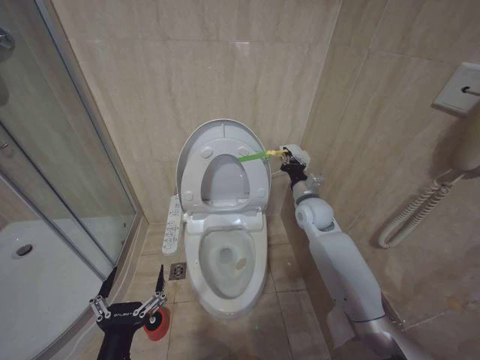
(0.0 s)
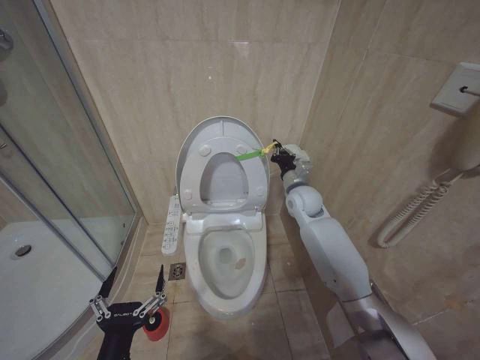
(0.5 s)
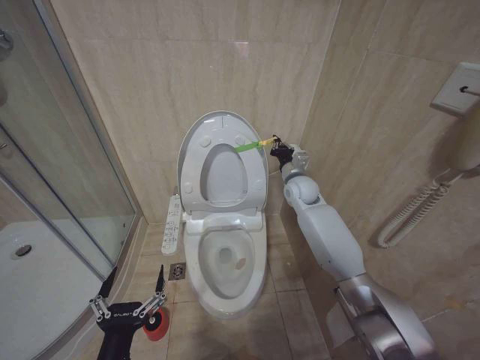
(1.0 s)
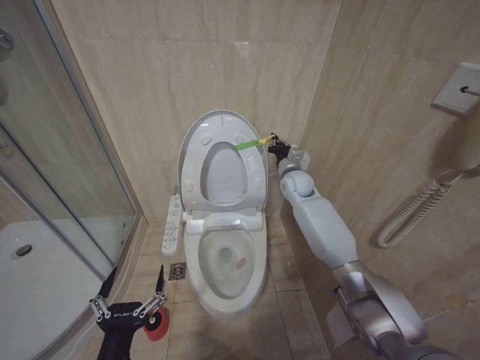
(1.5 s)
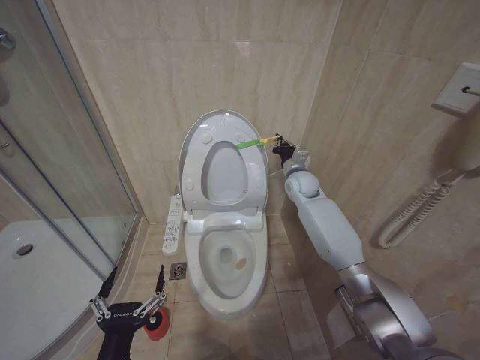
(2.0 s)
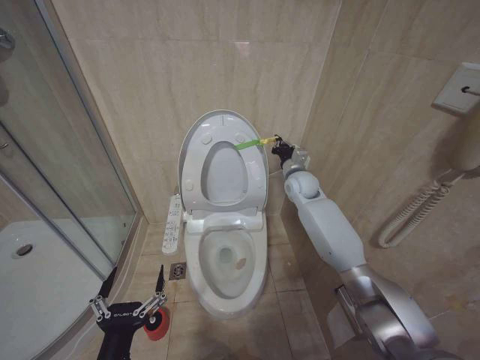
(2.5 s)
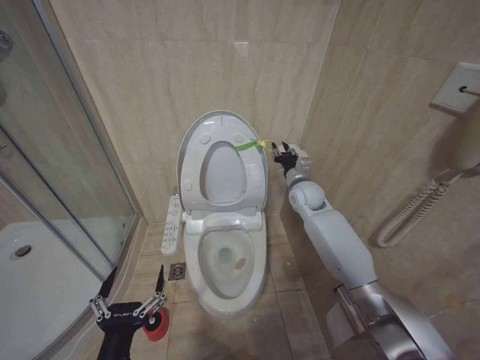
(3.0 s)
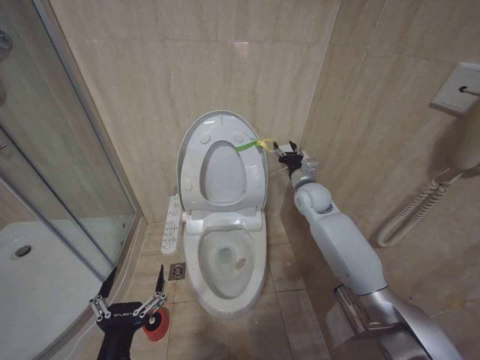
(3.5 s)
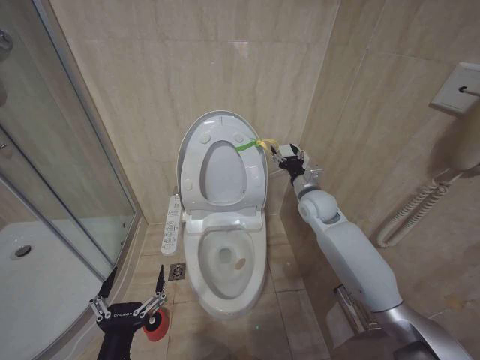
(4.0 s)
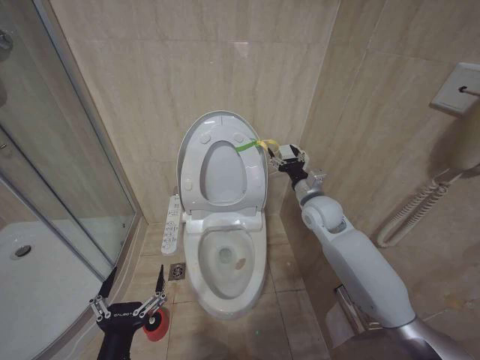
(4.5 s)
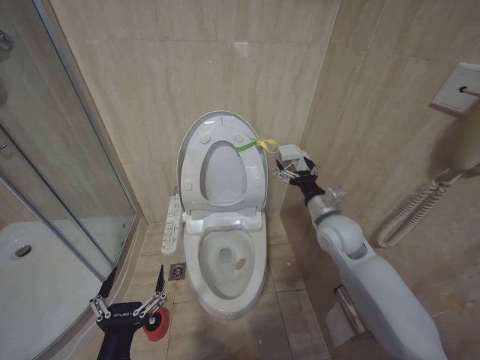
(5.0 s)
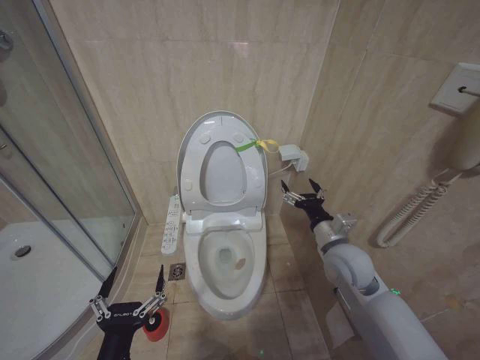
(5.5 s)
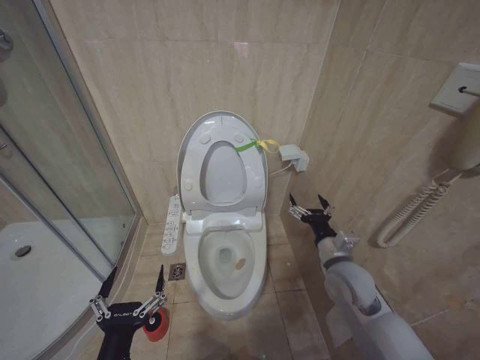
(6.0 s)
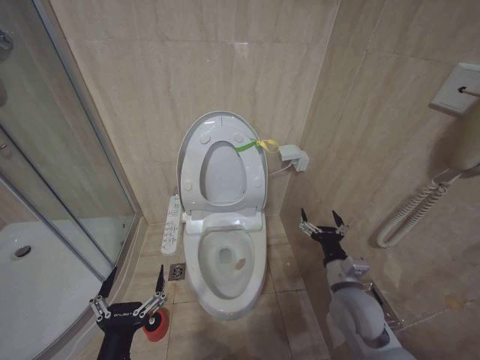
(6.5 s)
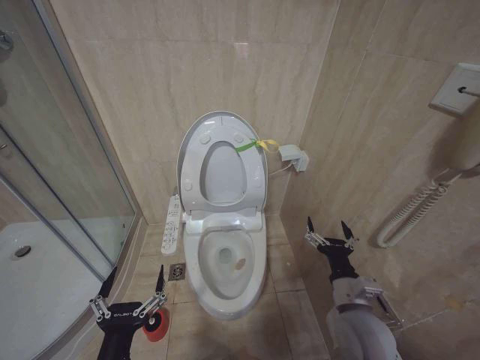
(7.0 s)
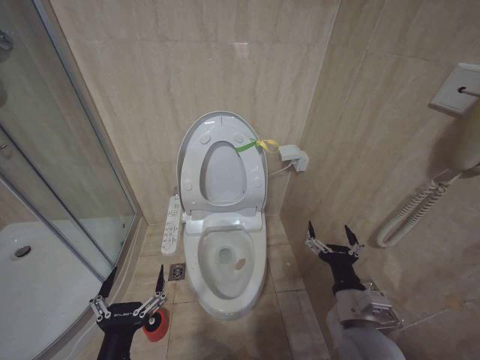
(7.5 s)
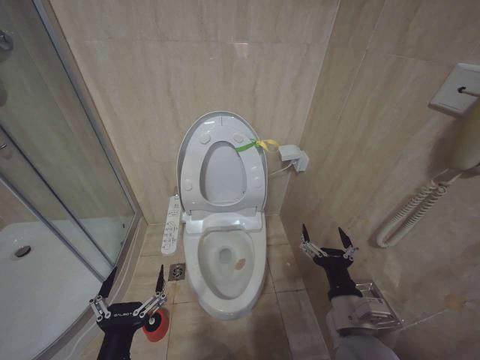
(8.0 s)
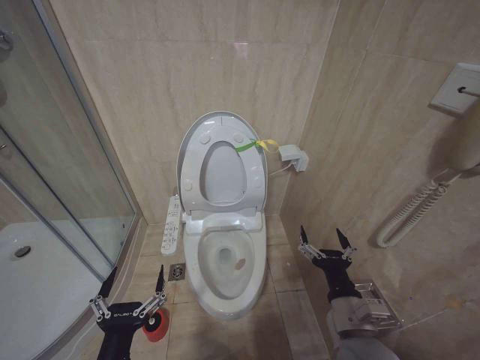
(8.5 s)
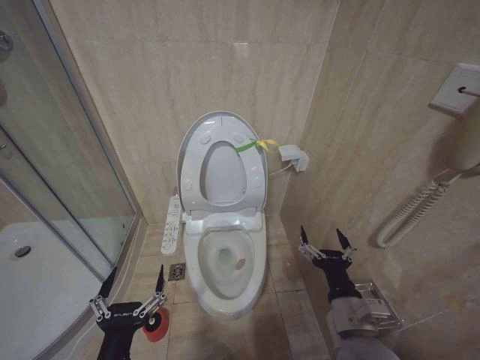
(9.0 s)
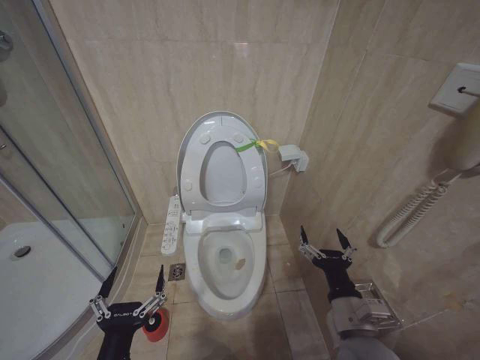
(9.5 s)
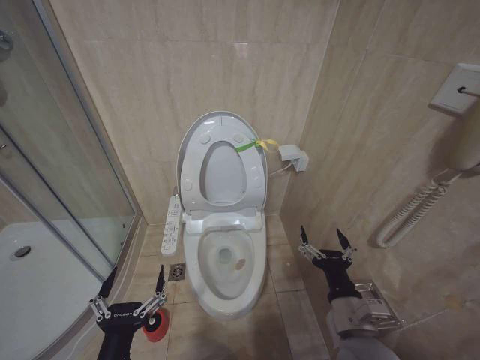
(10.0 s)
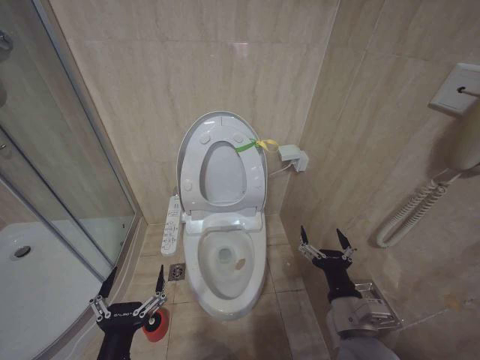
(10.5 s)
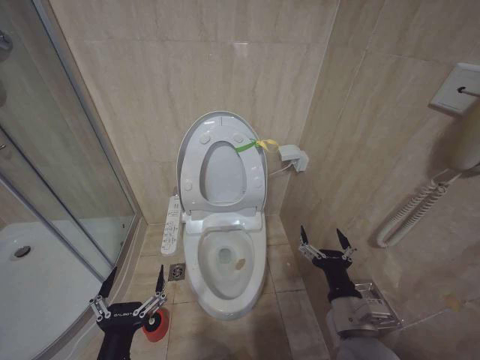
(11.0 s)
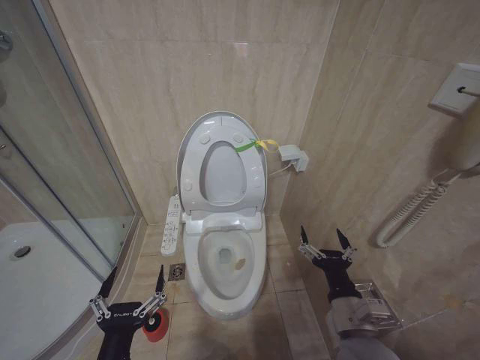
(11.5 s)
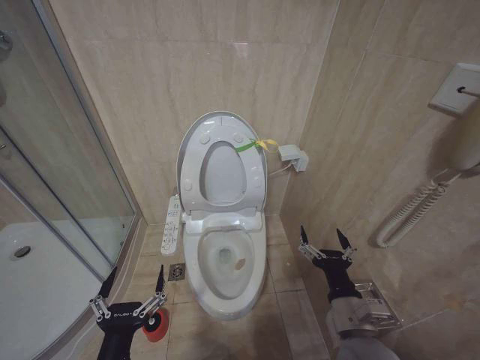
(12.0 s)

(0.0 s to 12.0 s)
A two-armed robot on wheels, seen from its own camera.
Task of the whole recording: Open the toilet lid, clean the toilet bowl with a toilet brush, close the toilet lid, and flush.
0.0 s - 2.0 s: The right gripper shifts some 10 cm forward.
2.0 s - 4.0 s: The right gripper moves backward, approximately 10 cm, and opens up.
4.0 s - 6.0 s: The right gripper travels backward and downward by approximately 20 cm.
6.0 s - 8.0 s: The right gripper shifts roughly 15 cm backward.
8.0 s - 12.0 s: The two grippers keep their place.

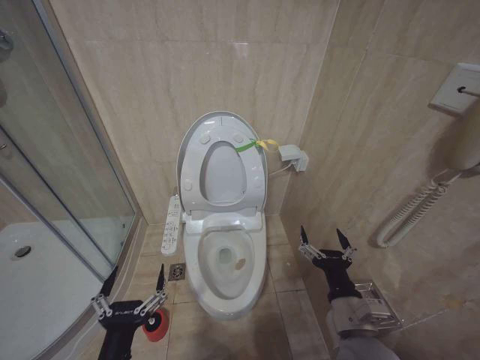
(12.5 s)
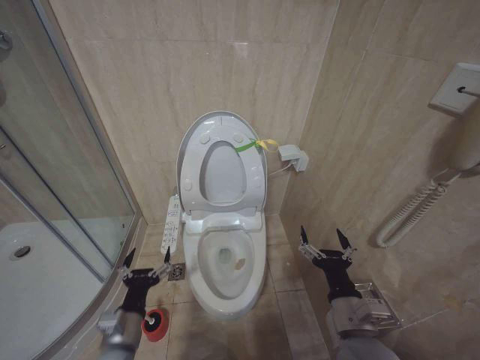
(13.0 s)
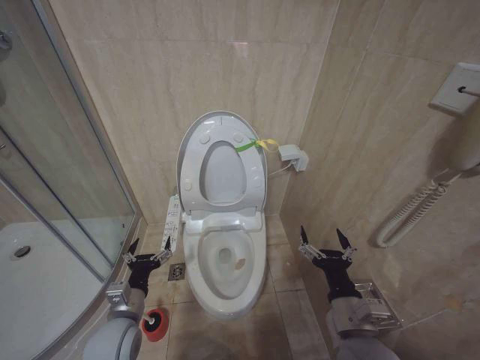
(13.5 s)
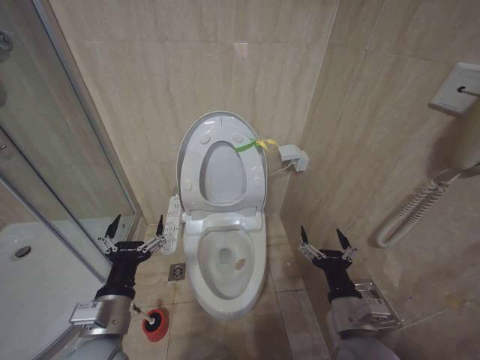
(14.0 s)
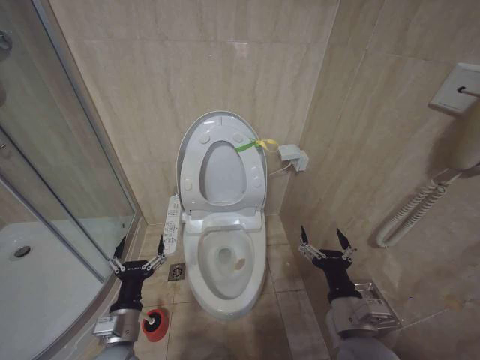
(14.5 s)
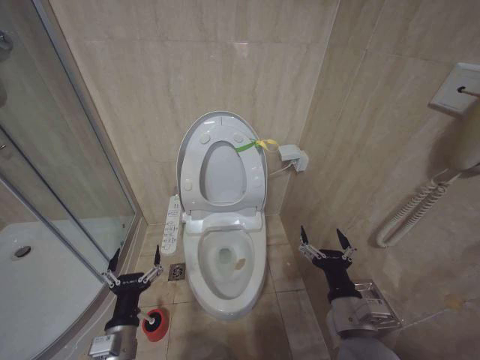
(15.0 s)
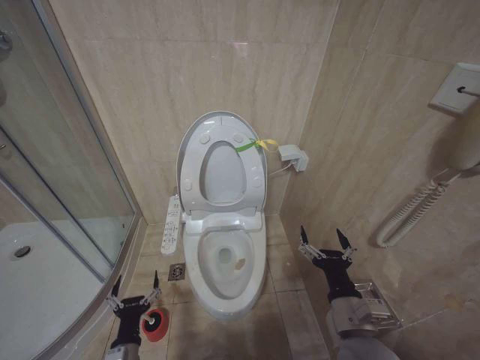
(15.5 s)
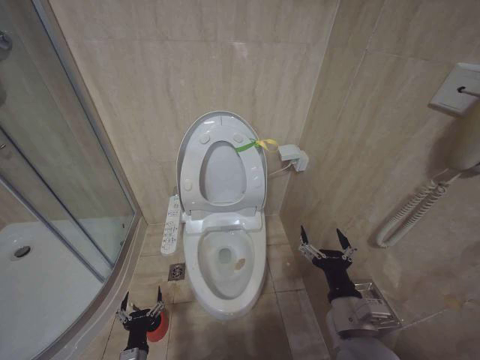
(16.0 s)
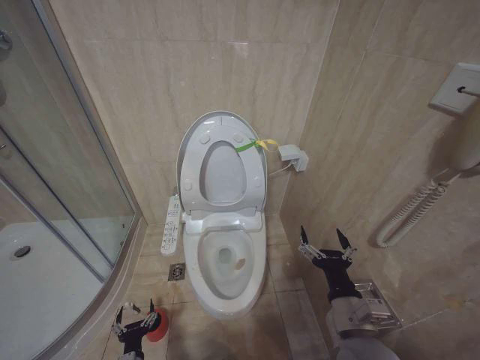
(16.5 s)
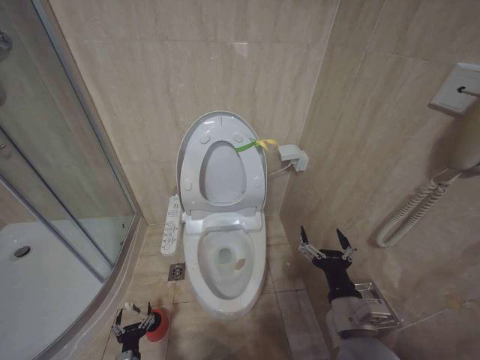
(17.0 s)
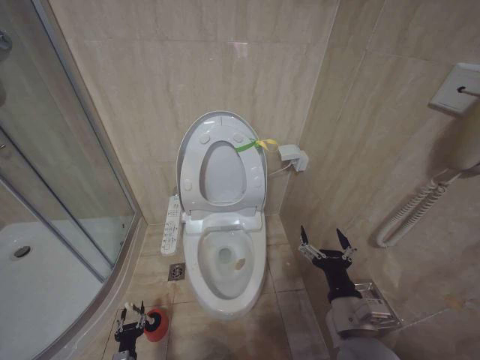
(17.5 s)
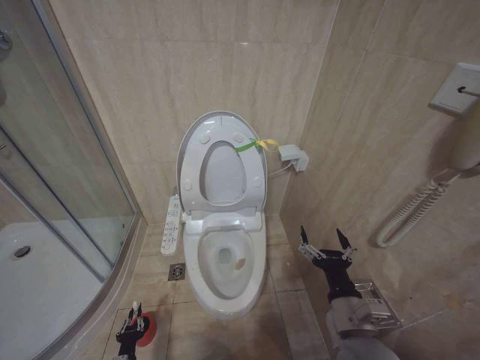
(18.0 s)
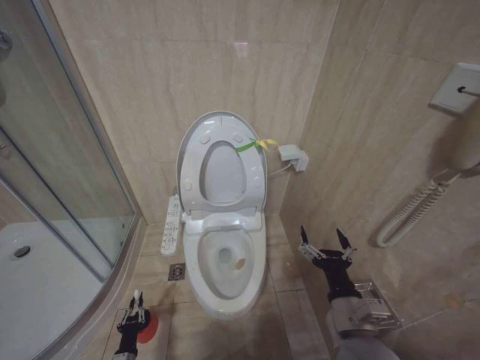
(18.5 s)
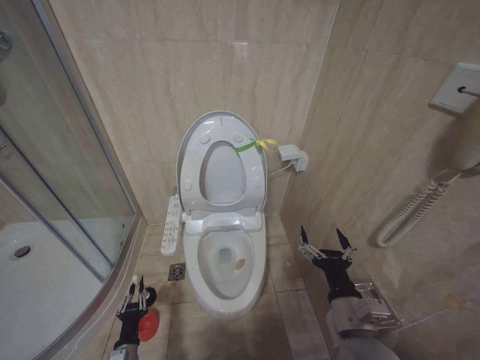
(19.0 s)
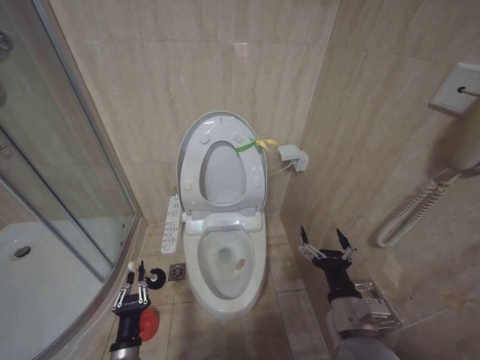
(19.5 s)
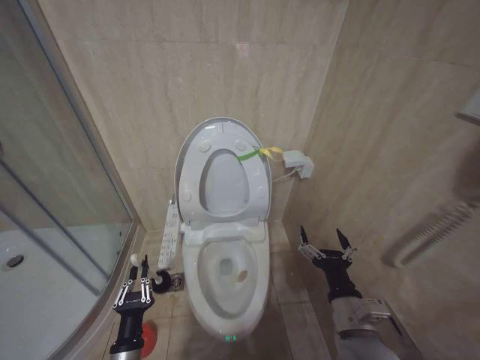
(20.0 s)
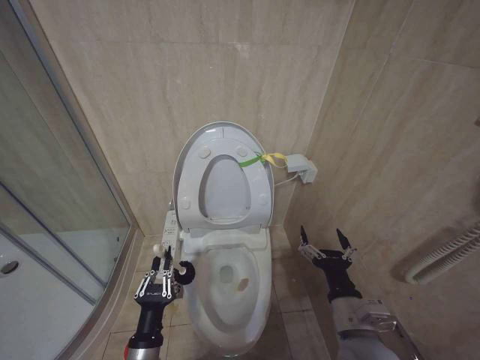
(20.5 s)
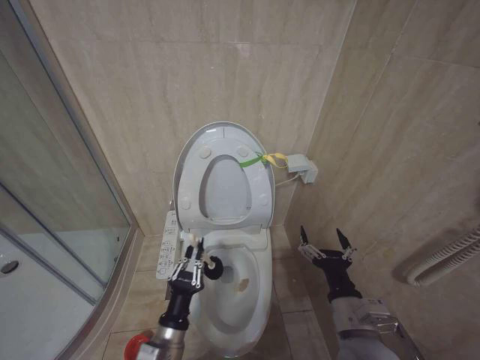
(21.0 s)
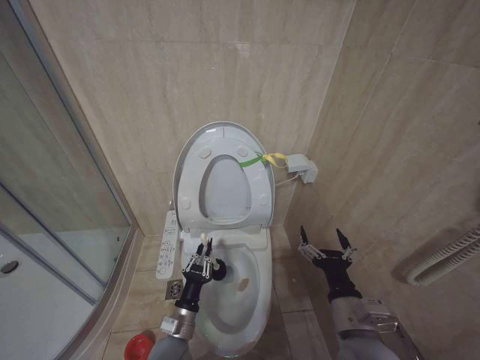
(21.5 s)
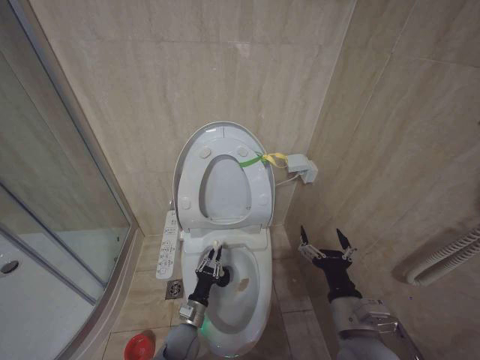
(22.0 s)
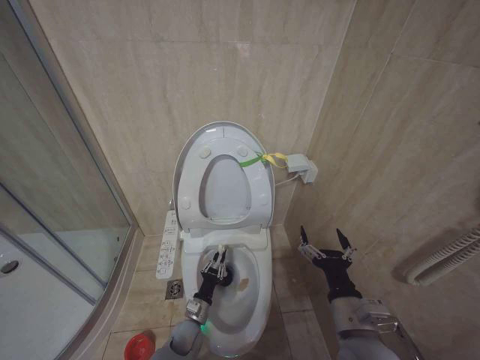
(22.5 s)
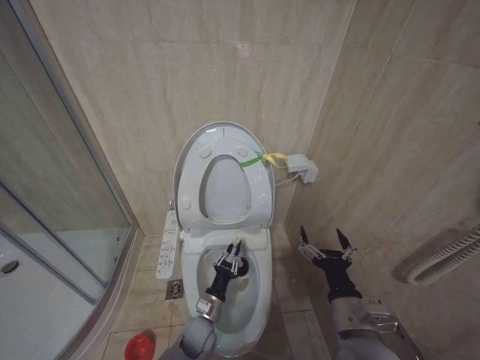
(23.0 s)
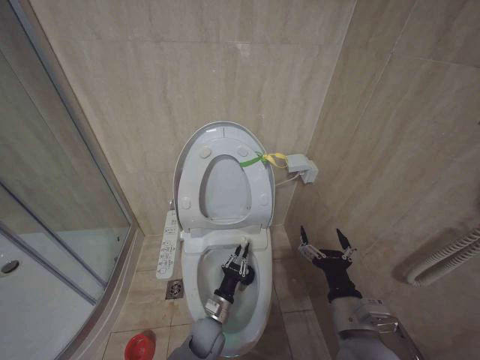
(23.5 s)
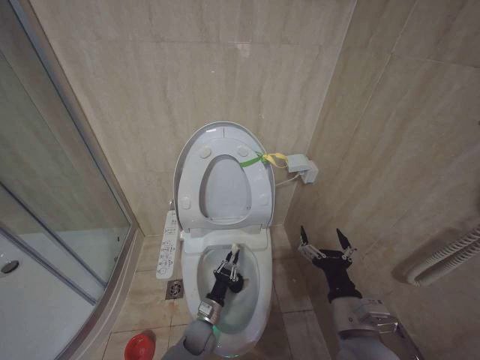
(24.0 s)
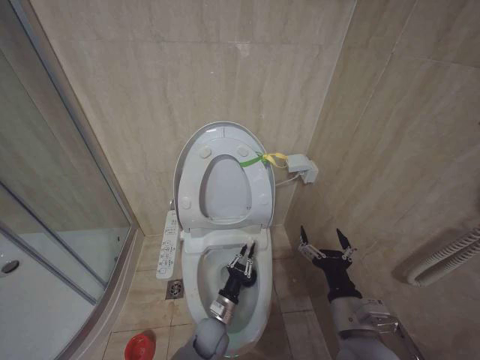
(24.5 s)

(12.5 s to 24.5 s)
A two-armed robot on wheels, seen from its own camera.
Task of the whole recording: Open the toilet lid, clean the toilet bowl with a toilet brush, close the toilet lid, and flush.
12.5 s - 14.5 s: The left gripper shifts roughly 10 cm forward.
14.5 s - 16.5 s: The left gripper goes some 25 cm downward.
16.5 s - 18.5 s: The left gripper is displaced to the left and downward by some 10 cm, and closes.
18.5 s - 20.5 s: The left gripper travels upward and to the right by some 30 cm.
20.5 s - 22.5 s: The left gripper shifts about 25 cm downward and forward.
22.5 s - 24.5 s: The left gripper is displaced to the right by roughly 5 cm.

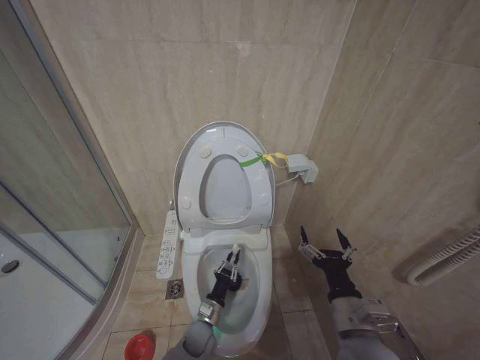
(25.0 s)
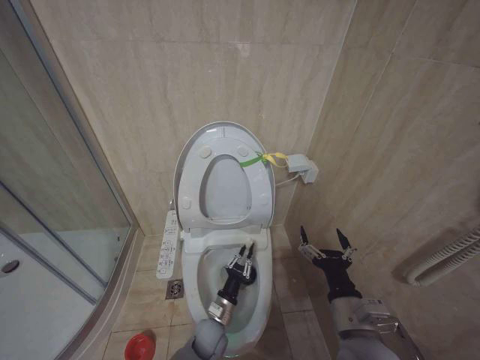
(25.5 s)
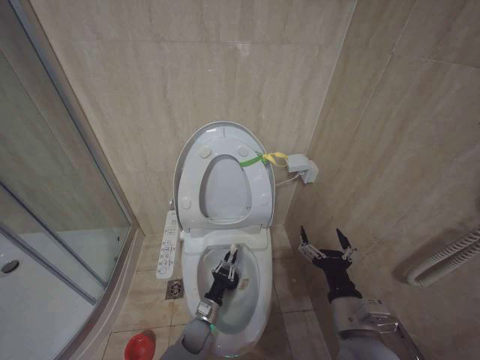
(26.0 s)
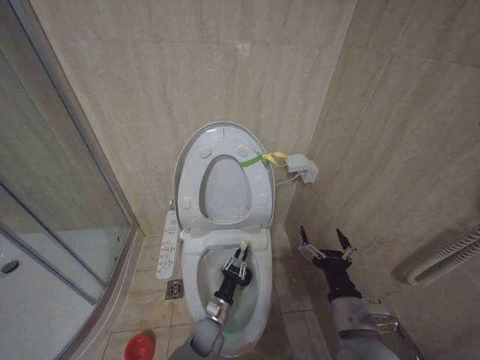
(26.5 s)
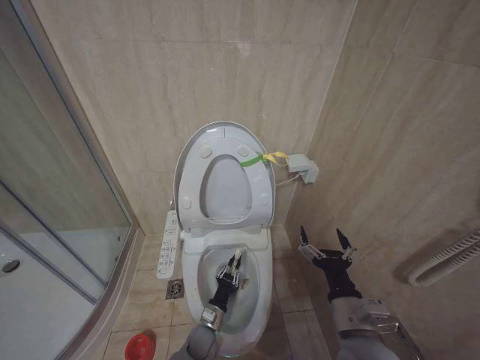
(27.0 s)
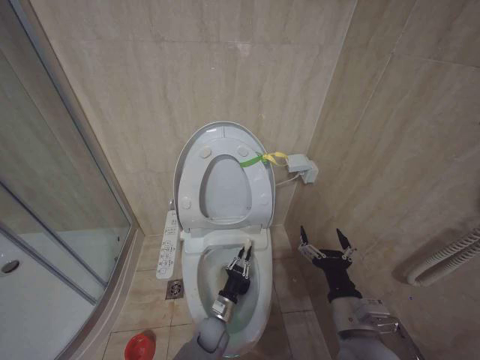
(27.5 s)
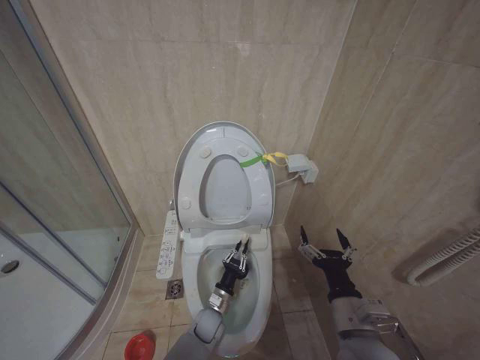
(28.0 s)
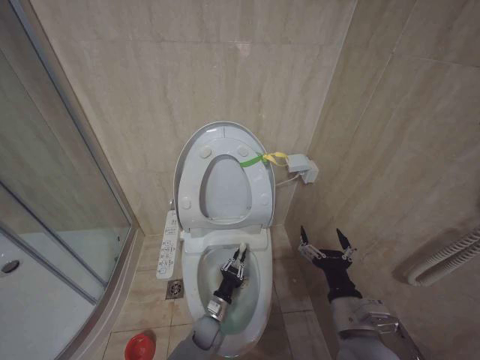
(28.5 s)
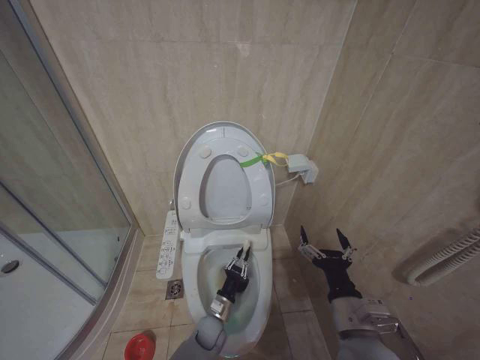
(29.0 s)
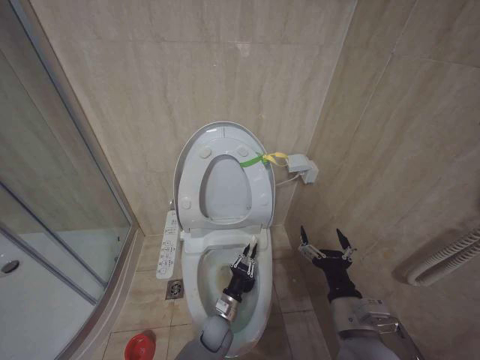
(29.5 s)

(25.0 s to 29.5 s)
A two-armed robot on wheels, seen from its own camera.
Task of the whole recording: Open the toilet lid, clean the toilet bowl with a toilet brush, close the toilet lid, and flush.
27.0 s - 29.5 s: The left gripper shifts by about 5 cm.
